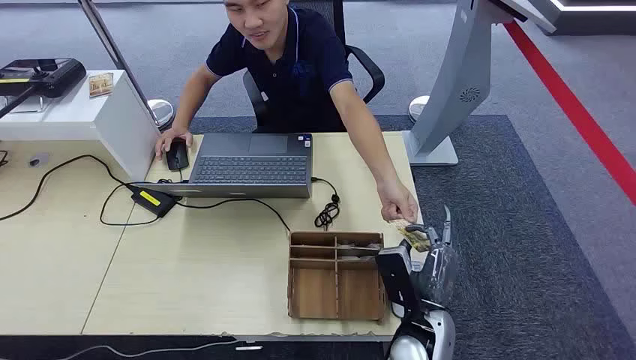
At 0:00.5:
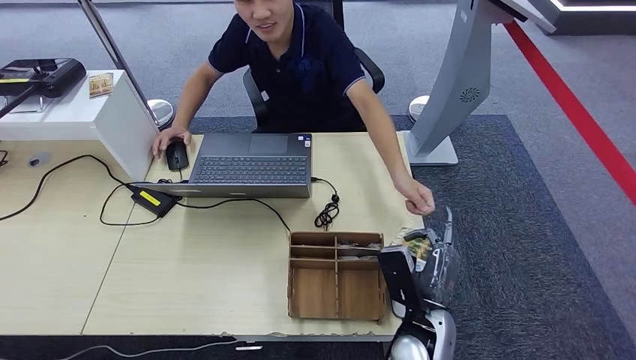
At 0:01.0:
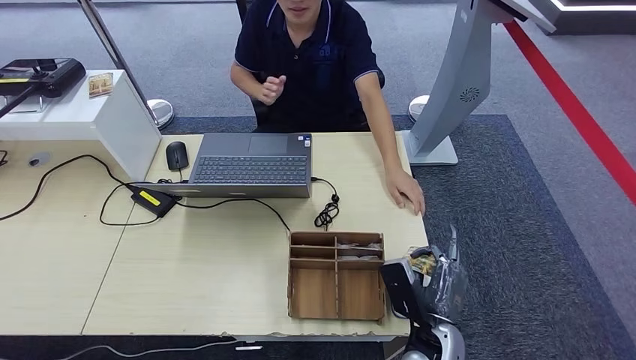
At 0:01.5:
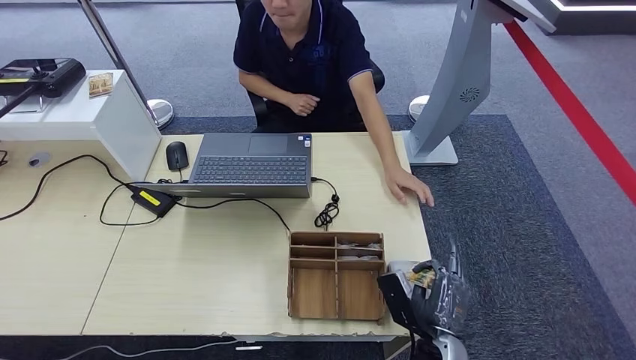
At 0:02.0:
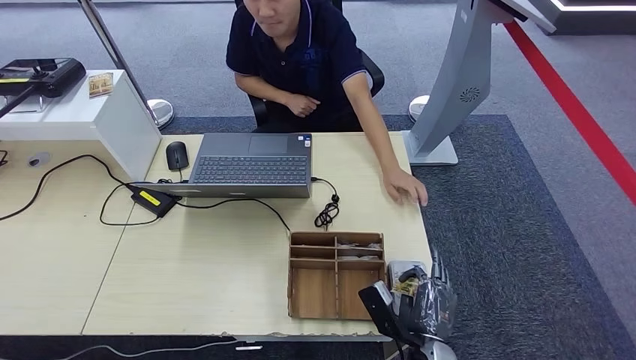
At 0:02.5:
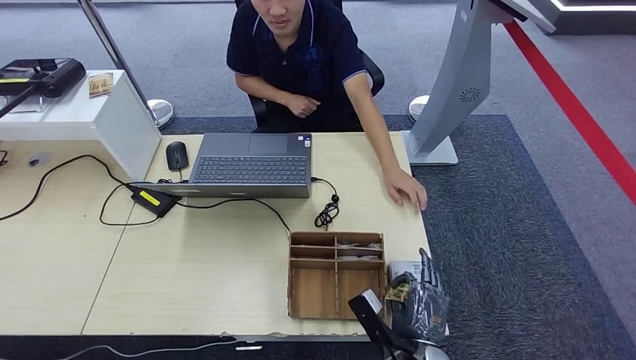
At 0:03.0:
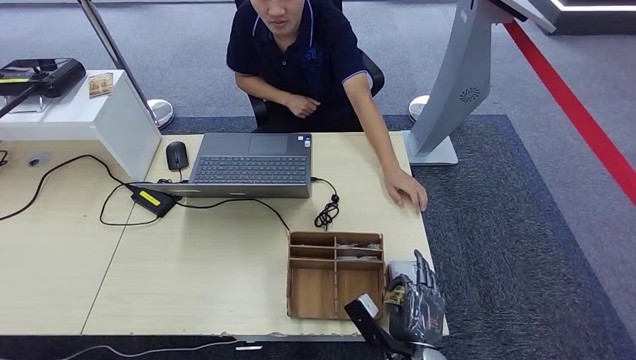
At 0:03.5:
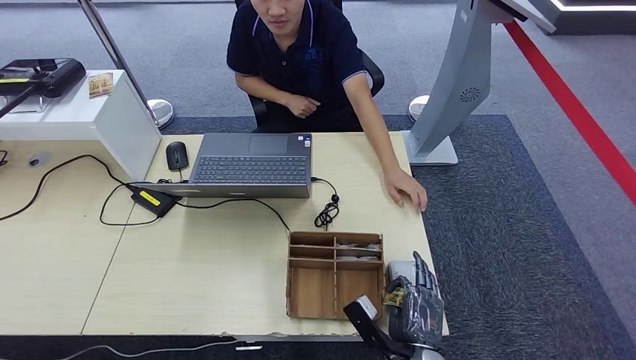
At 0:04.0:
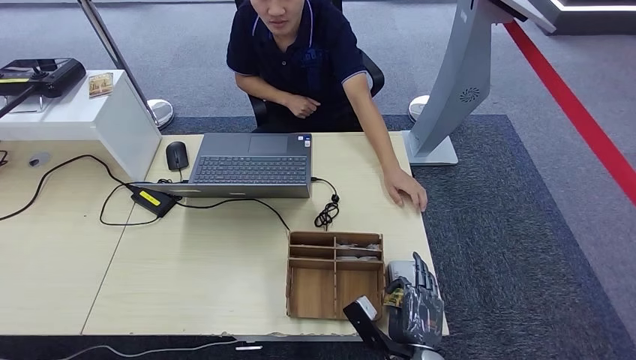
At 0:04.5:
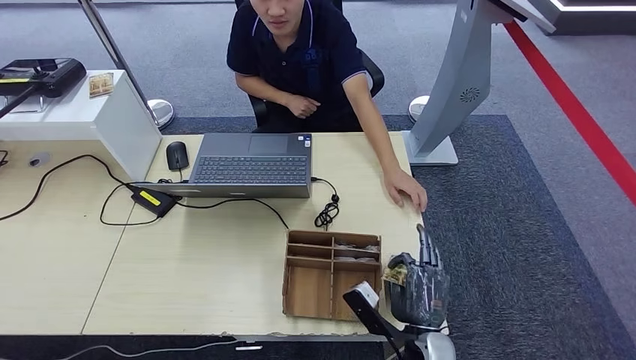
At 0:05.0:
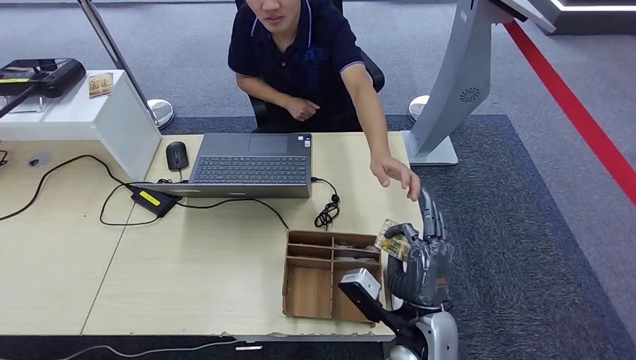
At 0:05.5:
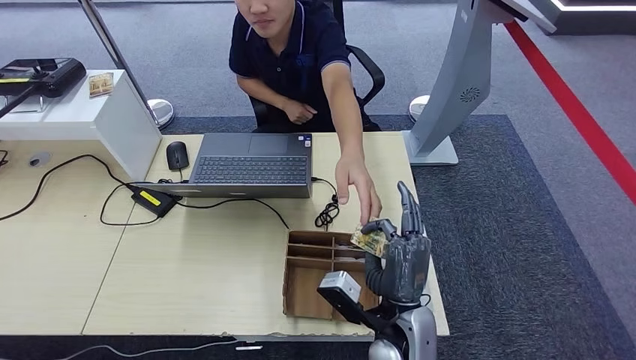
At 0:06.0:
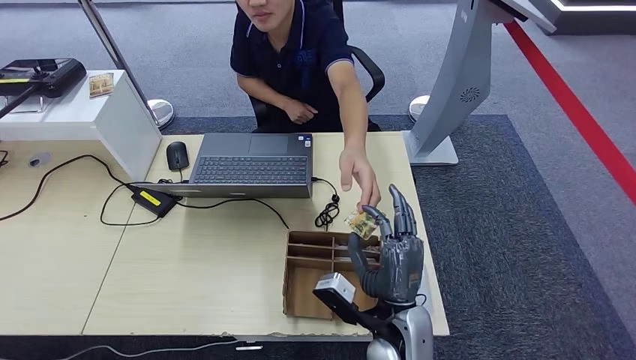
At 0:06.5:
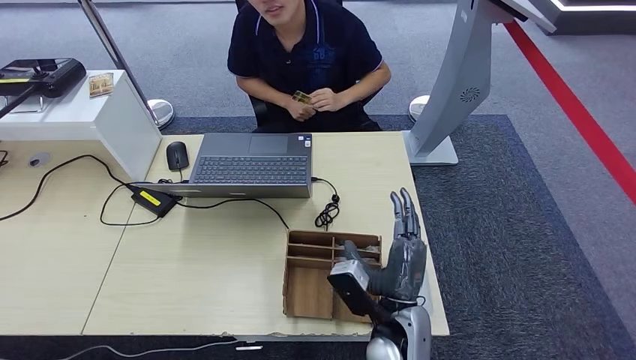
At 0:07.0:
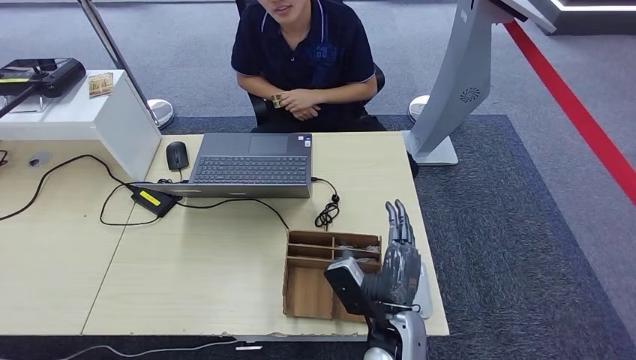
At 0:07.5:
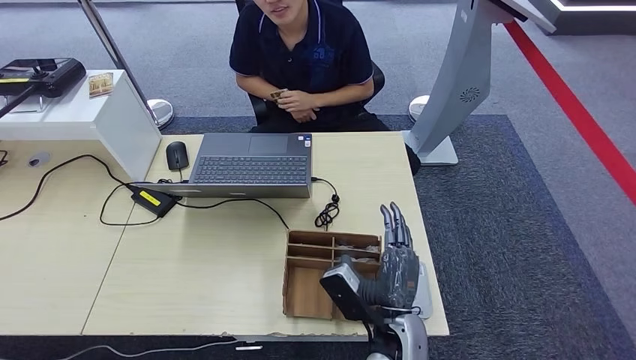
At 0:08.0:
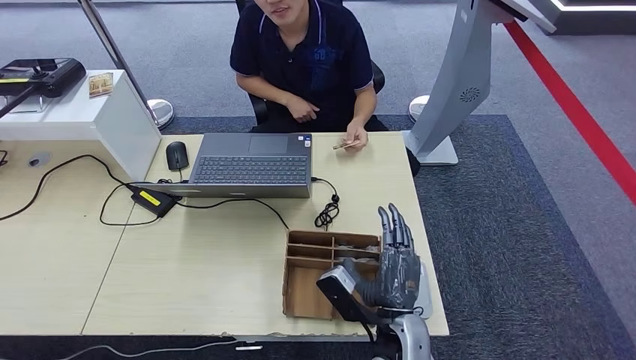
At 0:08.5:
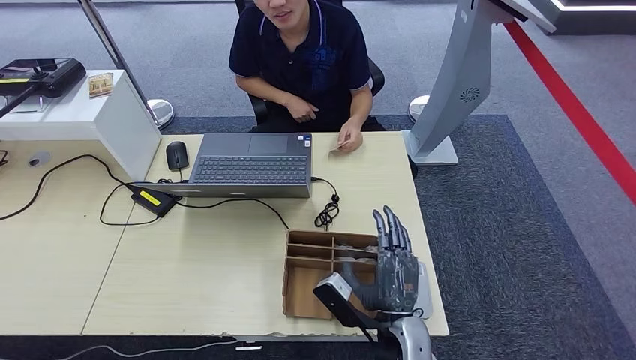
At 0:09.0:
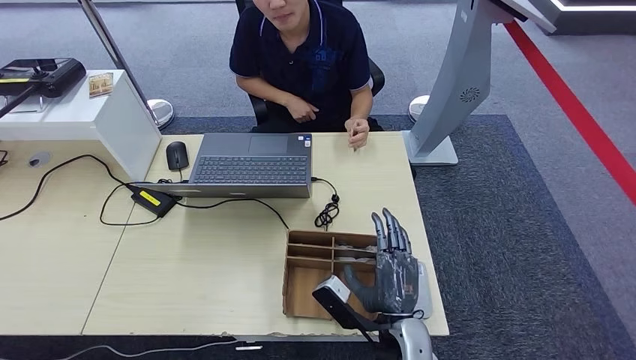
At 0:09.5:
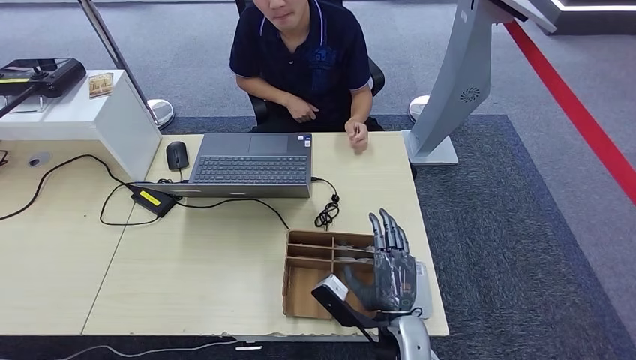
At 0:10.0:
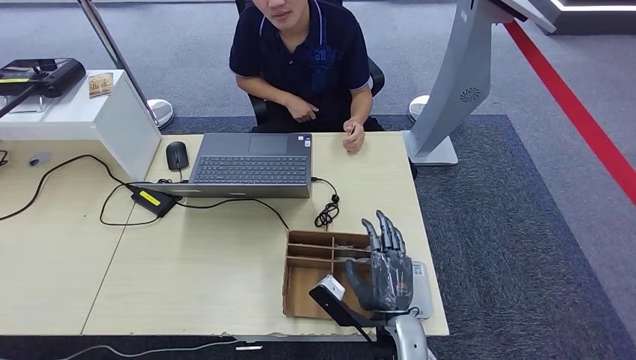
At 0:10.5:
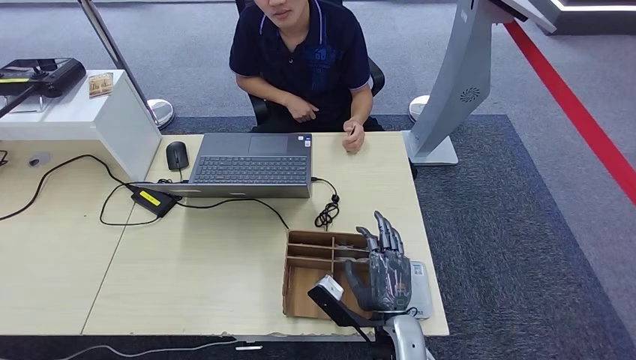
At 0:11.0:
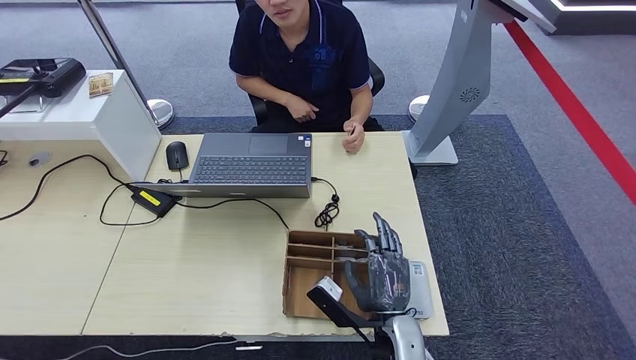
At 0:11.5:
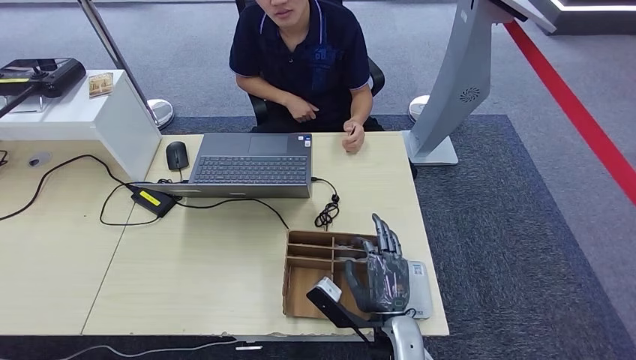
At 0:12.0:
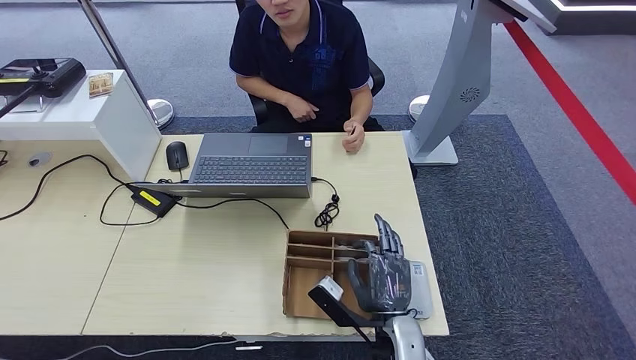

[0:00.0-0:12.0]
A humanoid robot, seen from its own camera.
Step, 0:00.0 to 0:00.5: Take the ID card from the person's hand.
Step, 0:01.0 to 0:04.0: Place the ID card on the card reader.
Step, 0:04.5 to 0:05.5: Hand the ID card to the person.
0:02.0 to 0:04.0: The hands make only small movements.
0:04.0 to 0:06.0: The right hand shifts approximately 10 cm upward, forward and to the left.
0:06.0 to 0:10.0: The hands stay close to where they were, moving slightly.
0:10.0 to 0:12.0: Both hands stay put.

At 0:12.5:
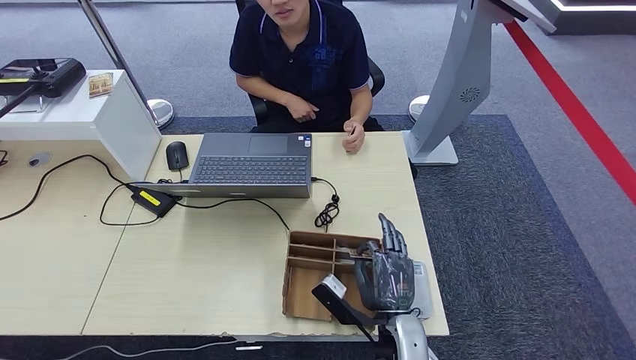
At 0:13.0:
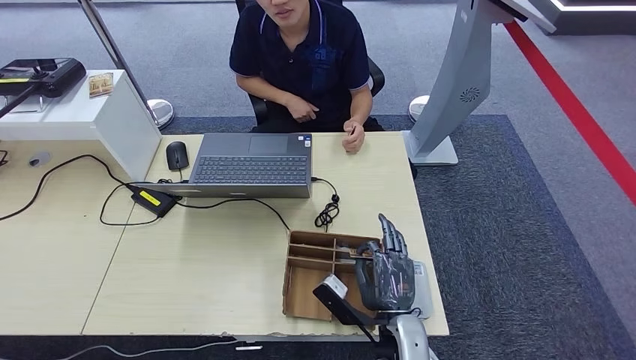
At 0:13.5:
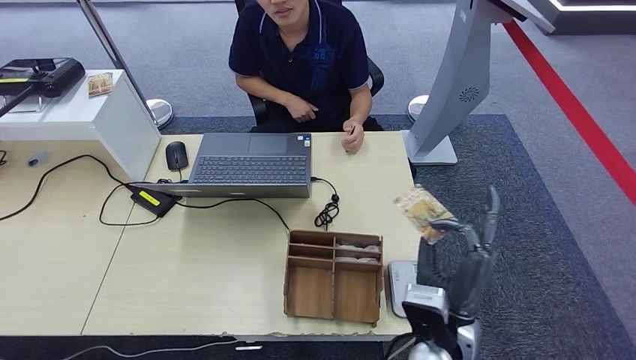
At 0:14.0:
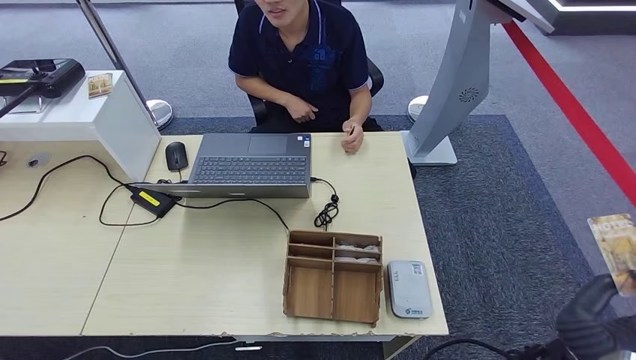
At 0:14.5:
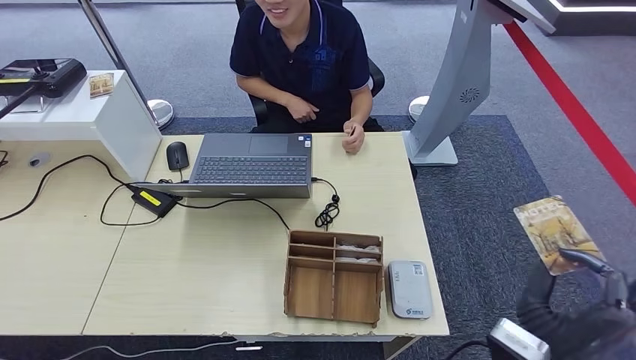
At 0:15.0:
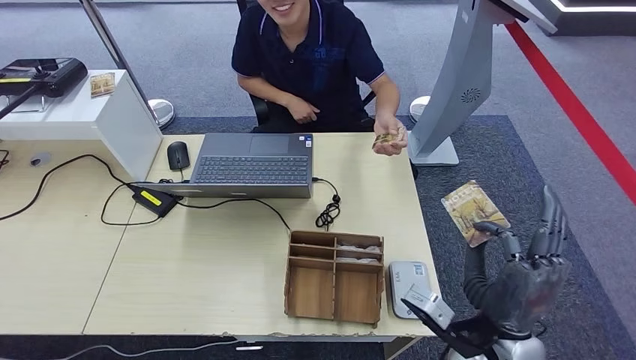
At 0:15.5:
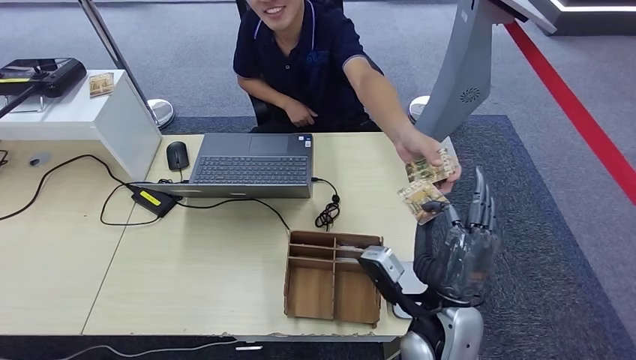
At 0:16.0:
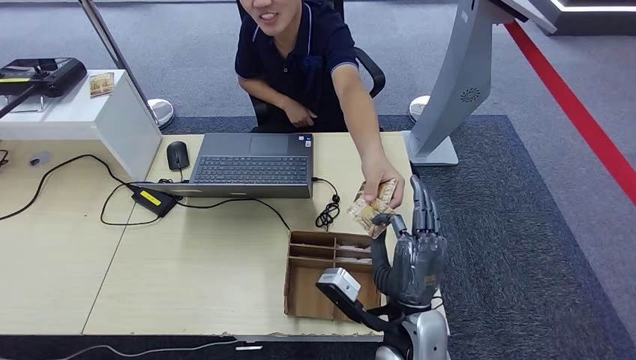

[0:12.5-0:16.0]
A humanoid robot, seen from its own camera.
Step, 0:13.5 to 0:16.0: Hand the room key to the person.
0:12.5 to 0:14.5: The right hand shifts roughly 15 cm to the right and upward.
0:14.5 to 0:16.0: The right hand moves to the left, approximately 15 cm.

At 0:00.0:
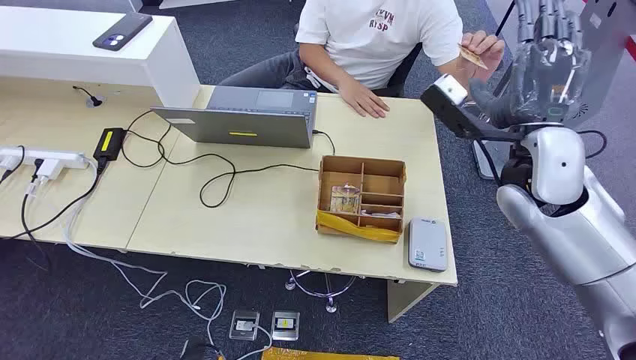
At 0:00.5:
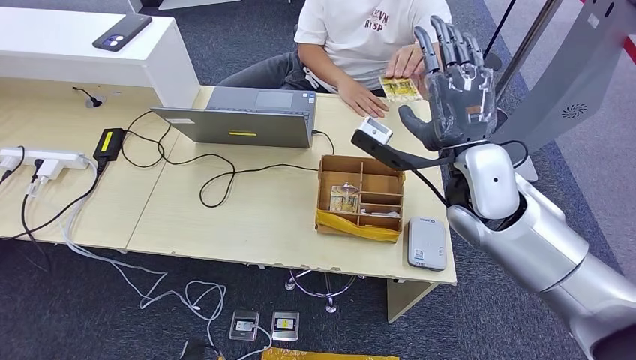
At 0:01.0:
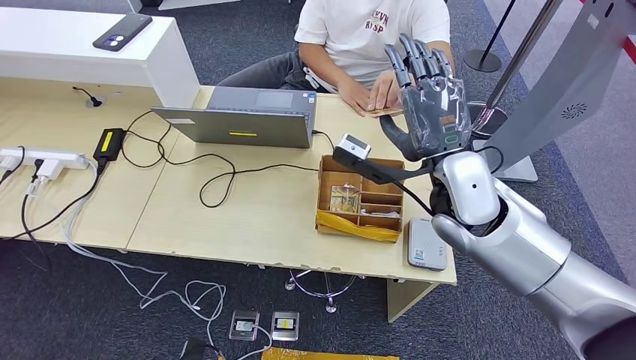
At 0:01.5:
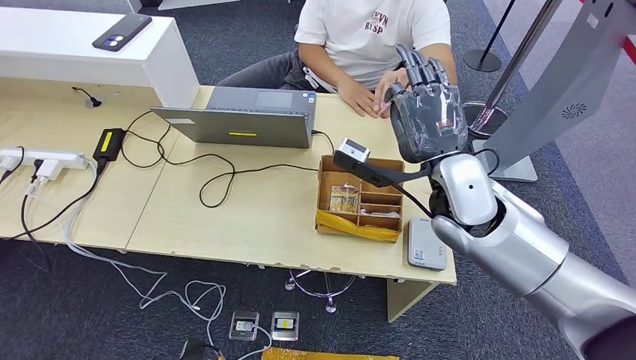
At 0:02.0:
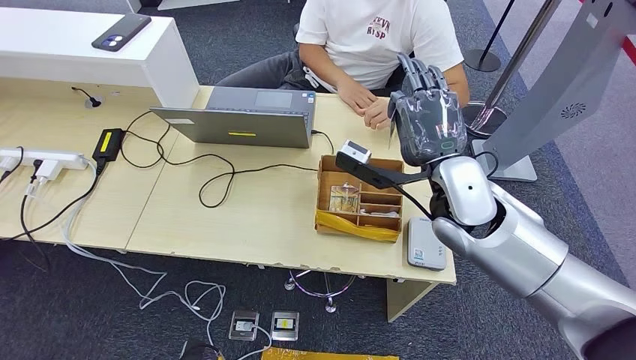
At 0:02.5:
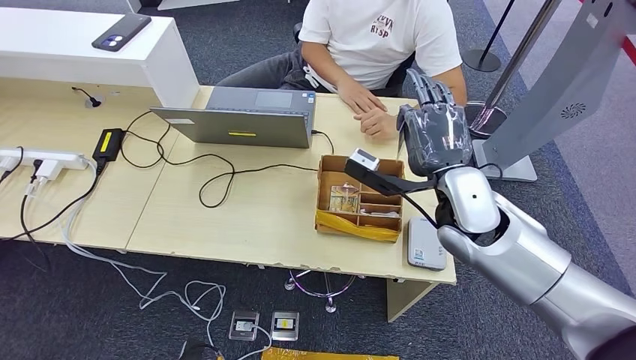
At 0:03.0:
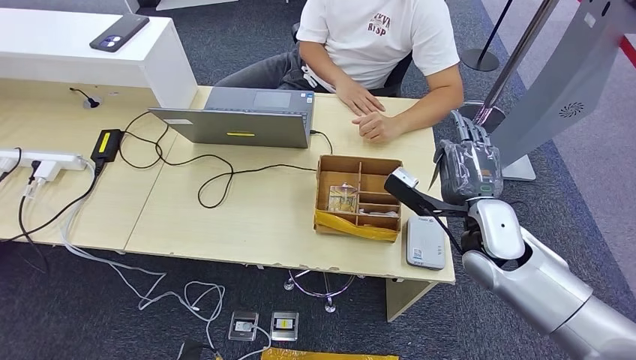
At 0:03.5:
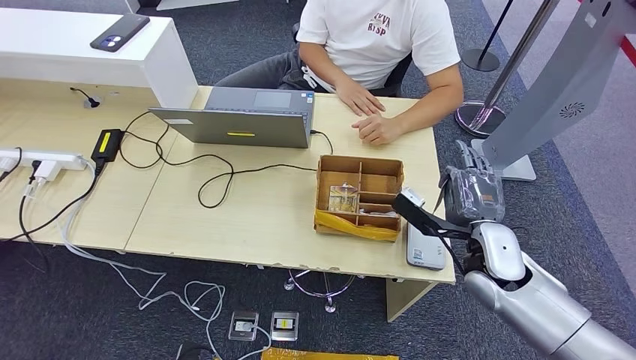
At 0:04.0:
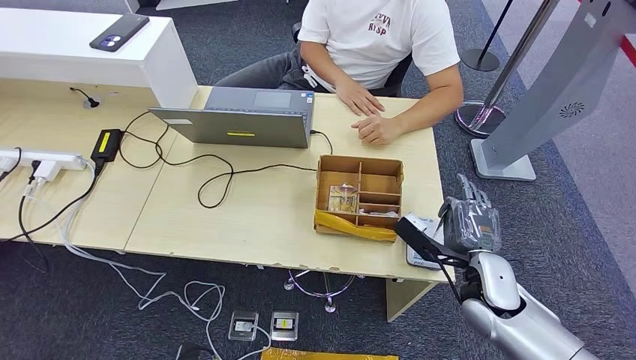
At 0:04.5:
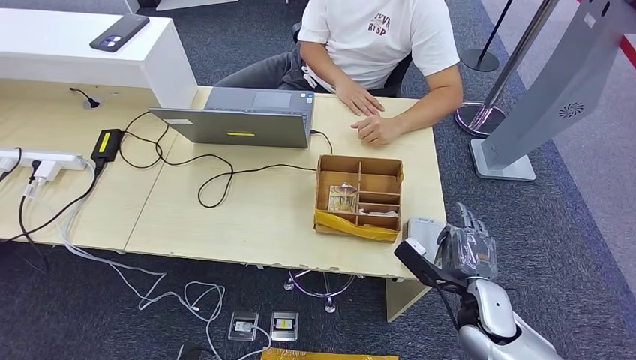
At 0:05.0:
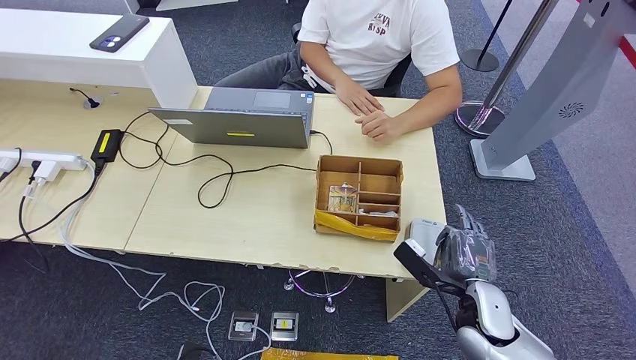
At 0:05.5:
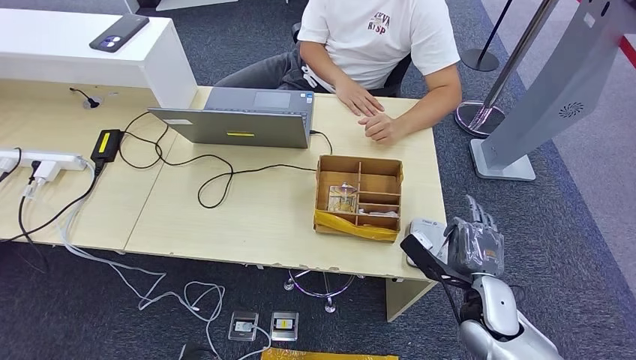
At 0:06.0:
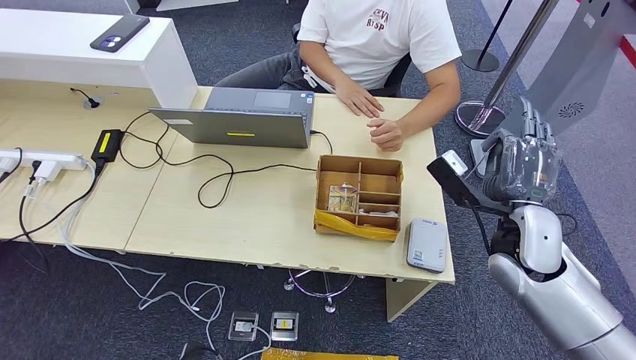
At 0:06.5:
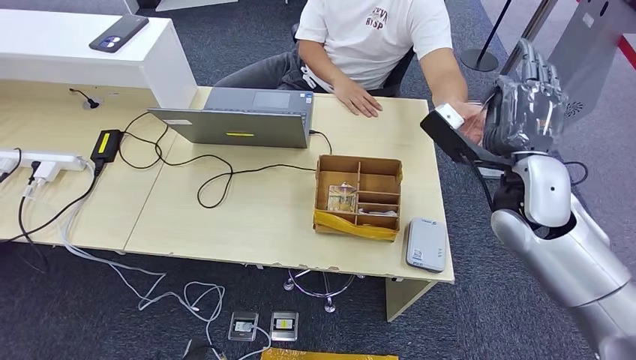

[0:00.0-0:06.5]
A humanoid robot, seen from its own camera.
Step, 0:00.0 to 0:02.0: Take the ID card from the person's hand.
Step, 0:02.5 to 0:05.5: Place the ID card on the card reader.
0:02.0 to 0:04.5: The right hand shifts about 25 cm downward, to the right and backward.
0:04.5 to 0:06.5: The right hand heads upward and forward, covering approximately 25 cm.
